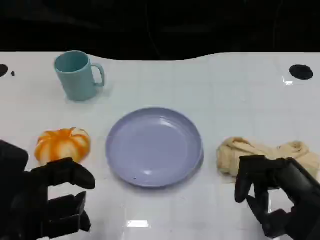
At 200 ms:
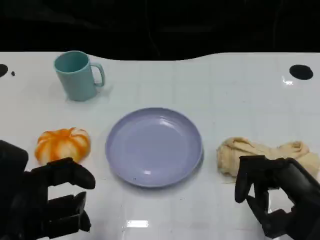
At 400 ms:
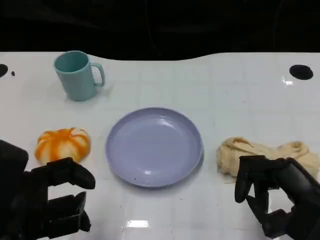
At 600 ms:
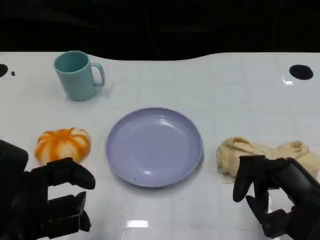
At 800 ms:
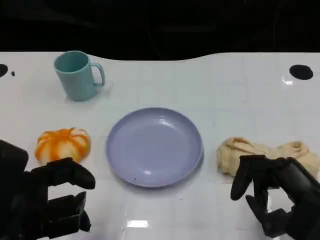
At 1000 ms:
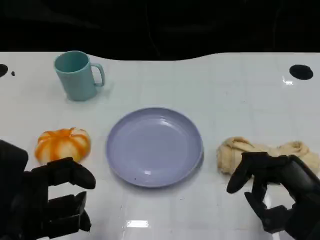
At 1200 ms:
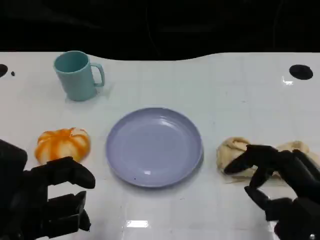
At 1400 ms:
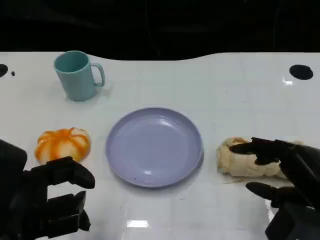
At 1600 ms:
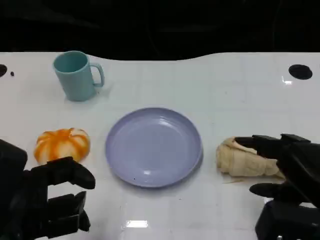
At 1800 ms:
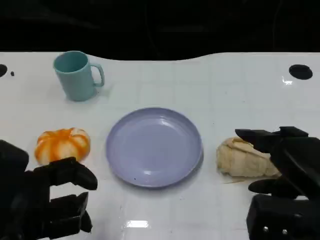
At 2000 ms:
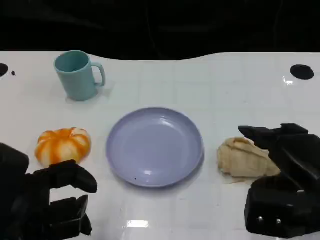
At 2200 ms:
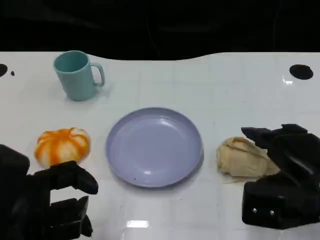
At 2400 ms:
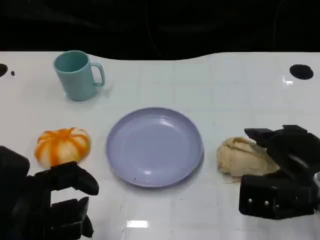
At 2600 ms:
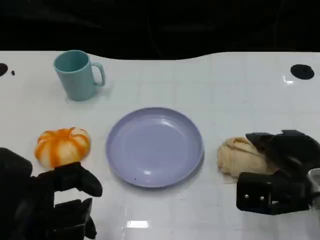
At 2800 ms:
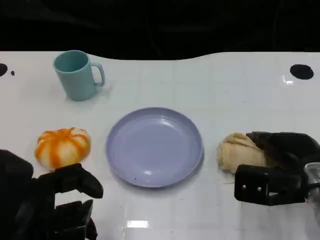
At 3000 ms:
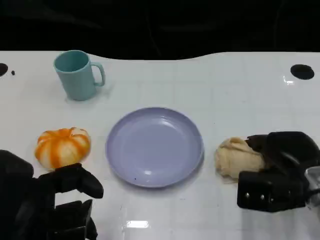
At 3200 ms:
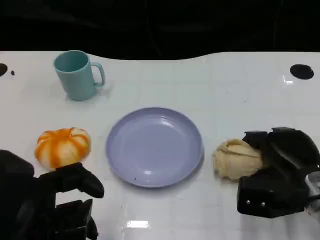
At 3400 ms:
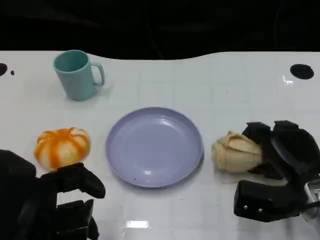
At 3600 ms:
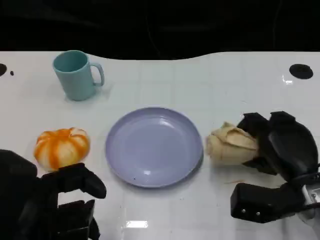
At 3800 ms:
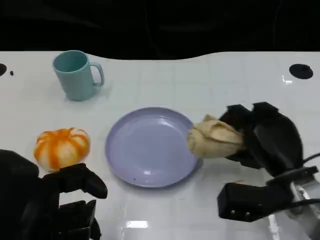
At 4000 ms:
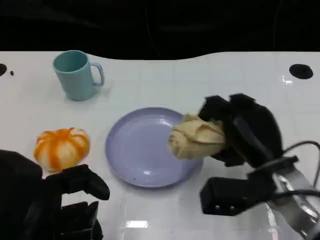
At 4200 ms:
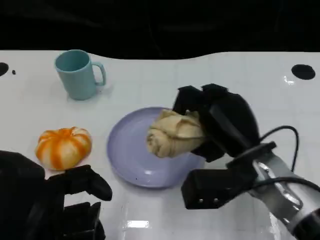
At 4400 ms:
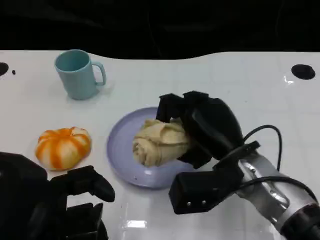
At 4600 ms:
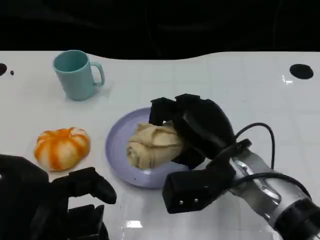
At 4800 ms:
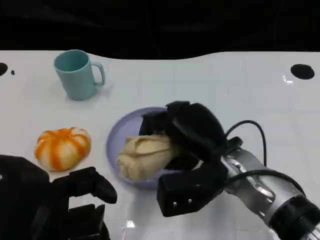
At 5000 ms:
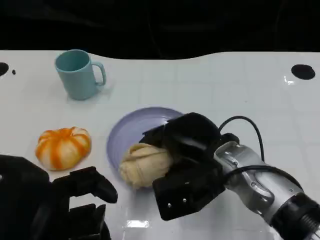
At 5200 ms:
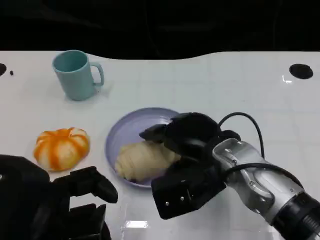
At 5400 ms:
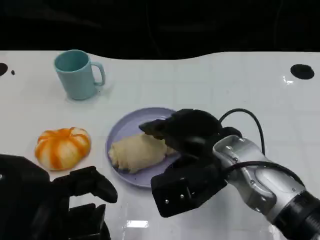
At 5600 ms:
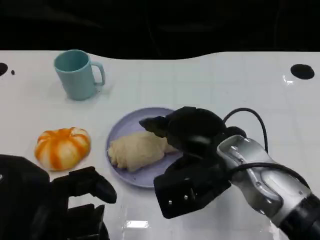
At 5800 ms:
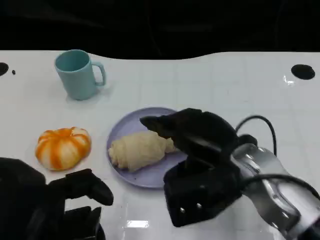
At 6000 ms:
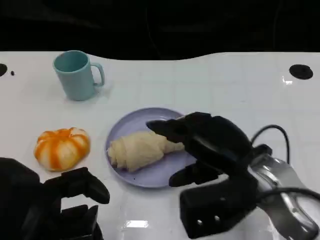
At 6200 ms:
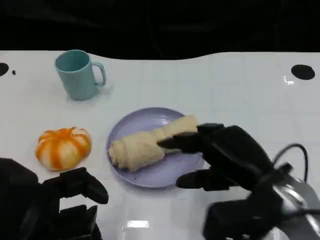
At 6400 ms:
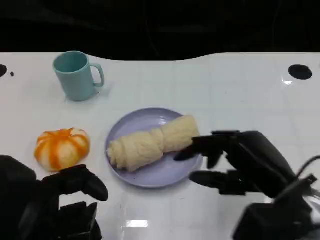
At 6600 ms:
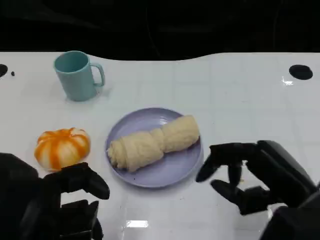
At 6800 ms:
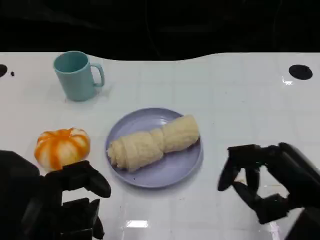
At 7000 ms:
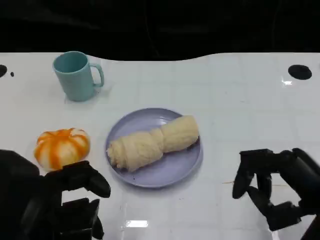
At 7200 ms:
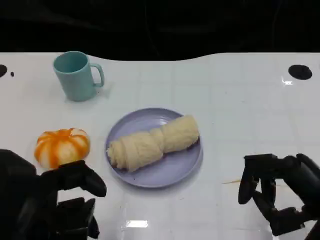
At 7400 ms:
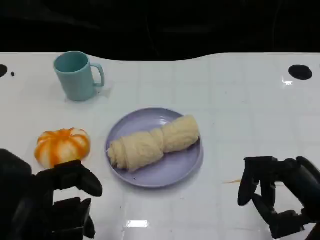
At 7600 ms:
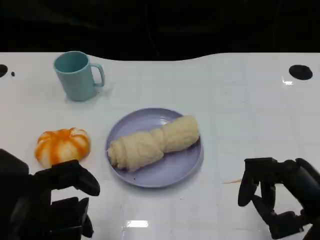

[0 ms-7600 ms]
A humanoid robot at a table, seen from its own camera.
Task of the whole recording: Grasp the towel on the left side of the plate with the left hand and place it into the plate.
1600 ms to 3000 ms: The right hand heads forward and downward, covering some 10 cm.
3000 ms to 4600 ms: The right hand goes approximately 10 cm to the left.
4600 ms to 6000 ms: The right hand ends up some 5 cm from where it was.
6000 ms to 7600 ms: The right hand heads to the right and backward, covering roughly 15 cm.

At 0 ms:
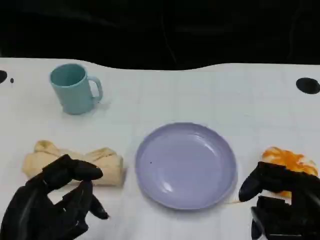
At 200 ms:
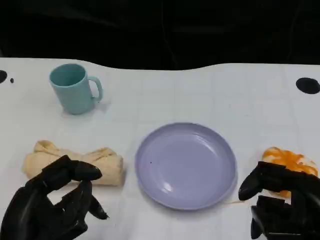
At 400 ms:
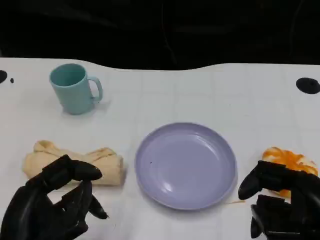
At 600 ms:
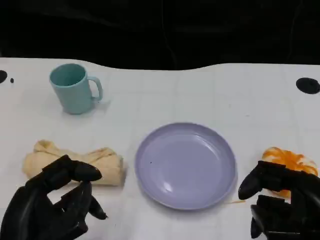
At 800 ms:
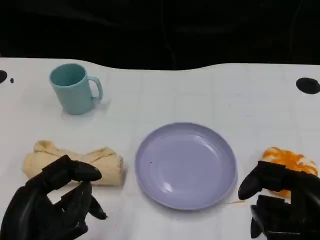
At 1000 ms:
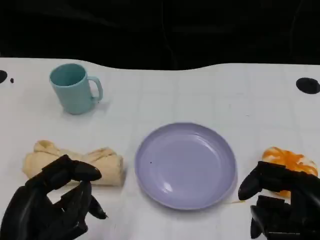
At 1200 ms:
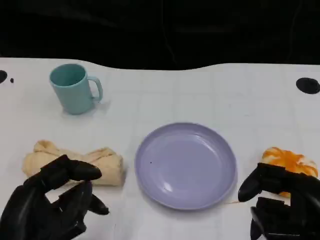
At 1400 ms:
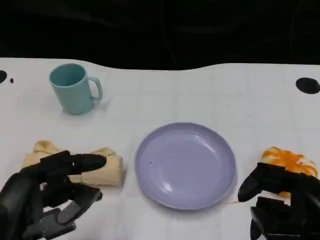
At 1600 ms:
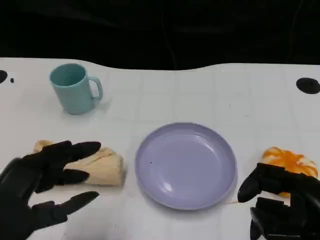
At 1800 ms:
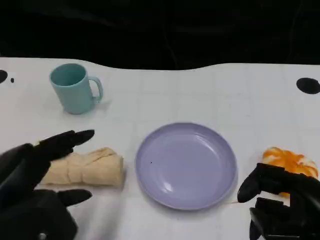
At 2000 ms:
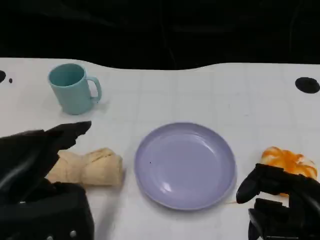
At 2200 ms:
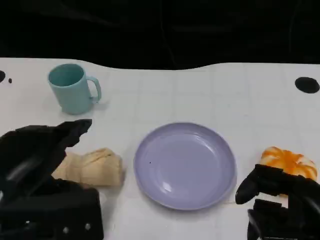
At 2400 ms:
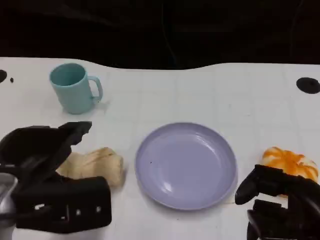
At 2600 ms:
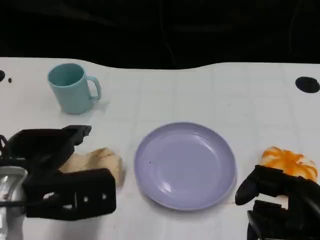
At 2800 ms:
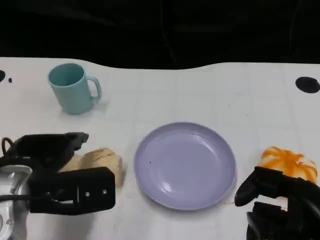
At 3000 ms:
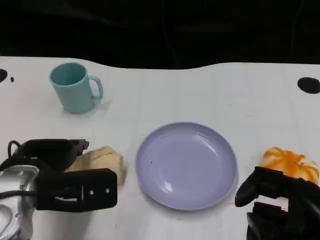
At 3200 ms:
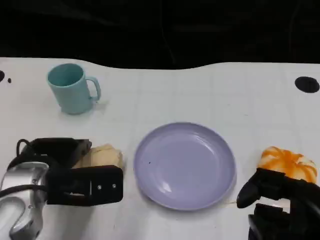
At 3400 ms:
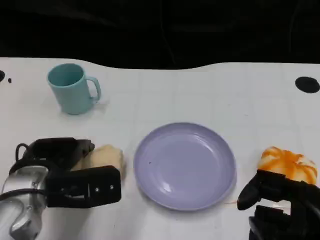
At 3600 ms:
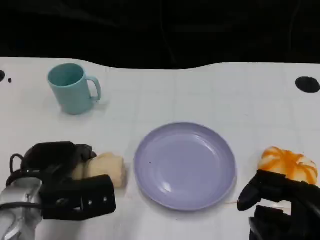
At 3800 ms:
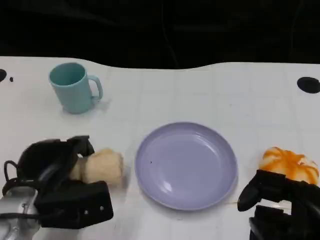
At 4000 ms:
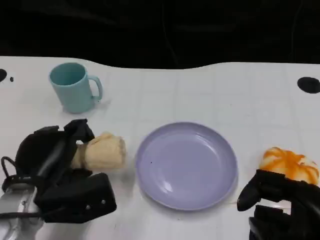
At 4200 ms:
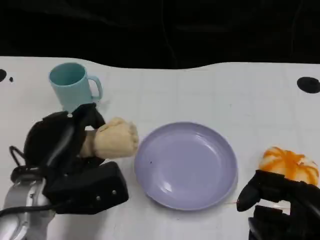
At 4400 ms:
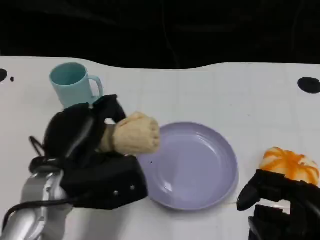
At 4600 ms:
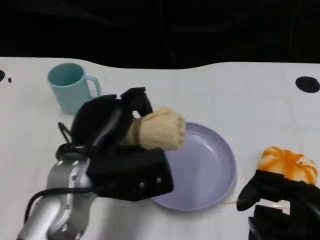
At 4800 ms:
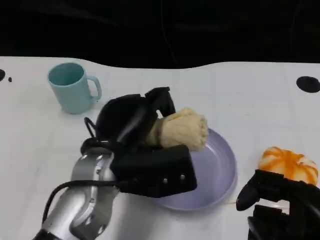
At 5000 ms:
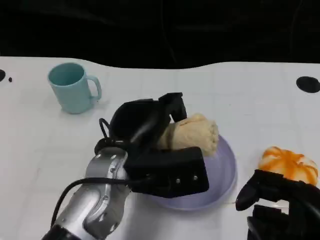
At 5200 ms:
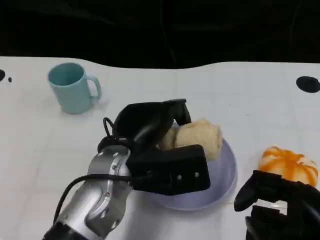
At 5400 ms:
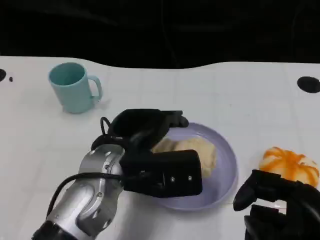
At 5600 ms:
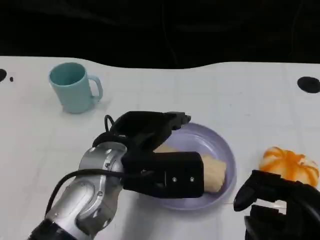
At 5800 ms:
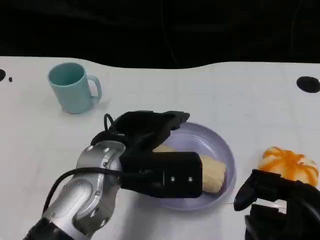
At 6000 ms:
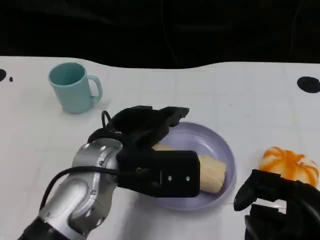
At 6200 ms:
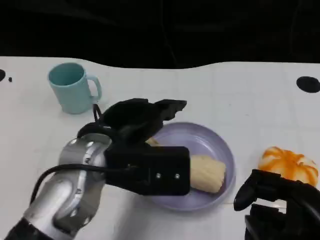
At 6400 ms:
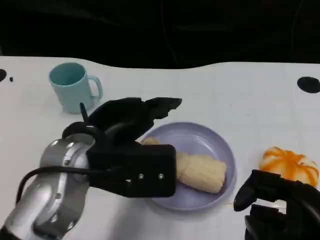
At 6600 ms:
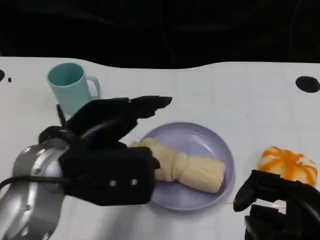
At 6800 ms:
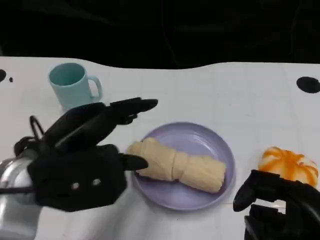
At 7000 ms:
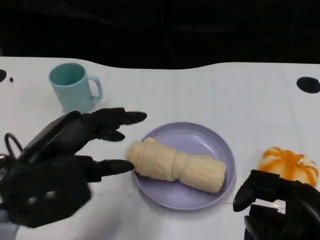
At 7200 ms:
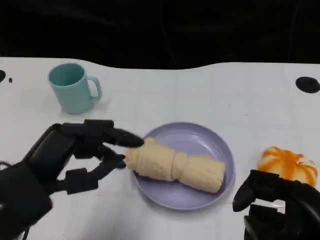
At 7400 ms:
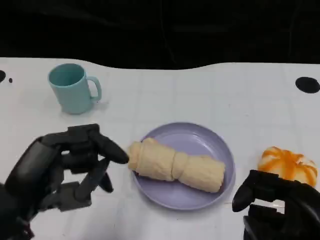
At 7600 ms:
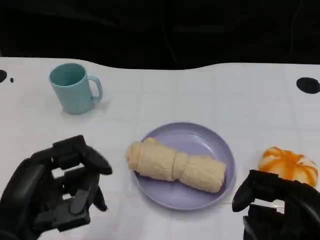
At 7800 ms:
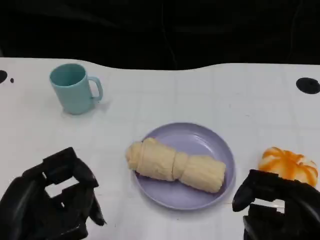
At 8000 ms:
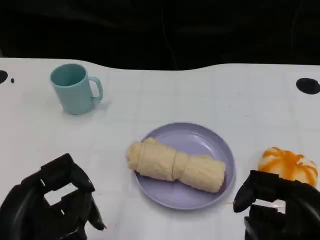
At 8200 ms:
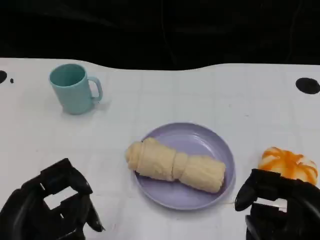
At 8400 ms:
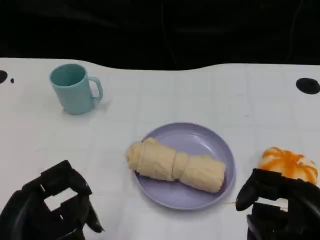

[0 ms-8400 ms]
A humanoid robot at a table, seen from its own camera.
Task of the whole recording: Grasp the towel on the left side of the plate with the left hand and place it into the plate.
1400 ms to 2800 ms: The left hand travels forward by some 10 cm.
4200 ms to 5600 ms: The left hand is displaced to the right by about 10 cm.
5600 ms to 7000 ms: The left hand shifts roughly 15 cm to the left and backward.
7000 ms to 8400 ms: The left hand is displaced backward by roughly 10 cm.

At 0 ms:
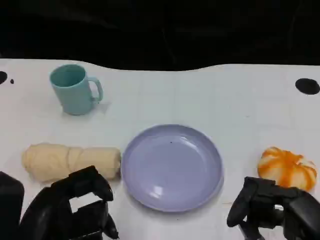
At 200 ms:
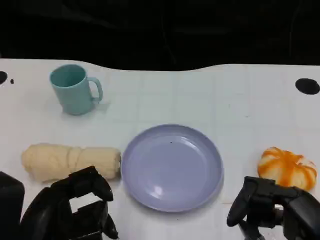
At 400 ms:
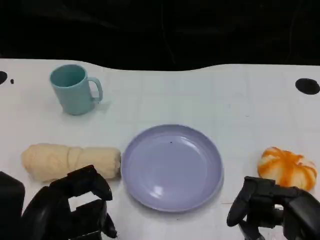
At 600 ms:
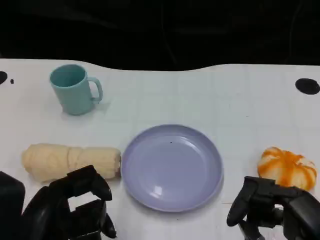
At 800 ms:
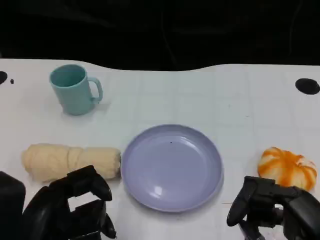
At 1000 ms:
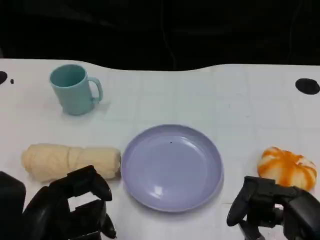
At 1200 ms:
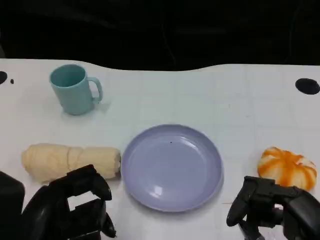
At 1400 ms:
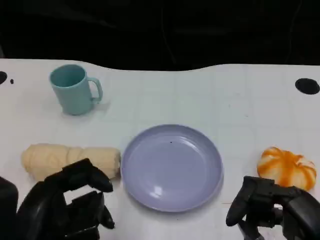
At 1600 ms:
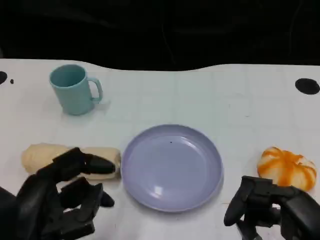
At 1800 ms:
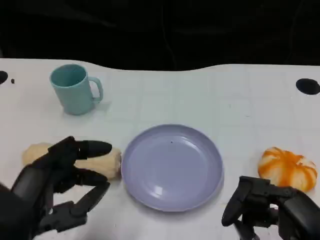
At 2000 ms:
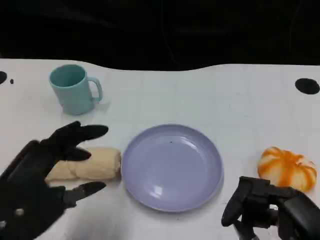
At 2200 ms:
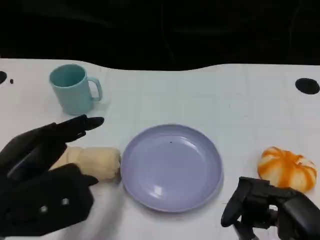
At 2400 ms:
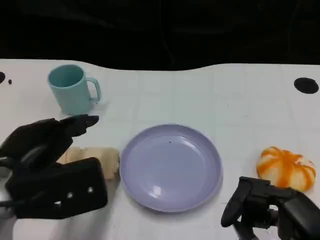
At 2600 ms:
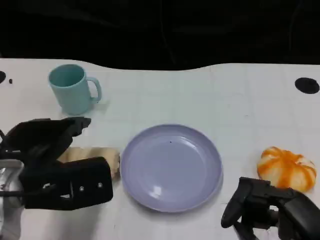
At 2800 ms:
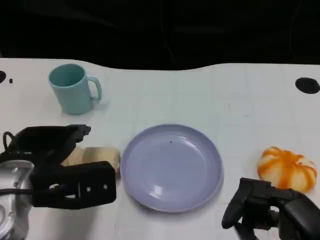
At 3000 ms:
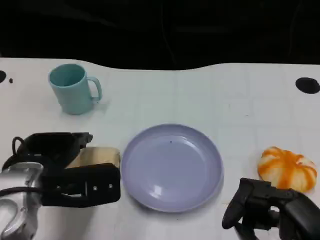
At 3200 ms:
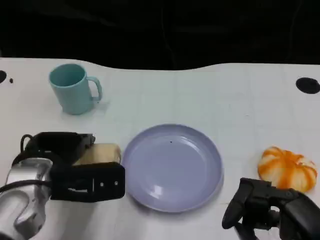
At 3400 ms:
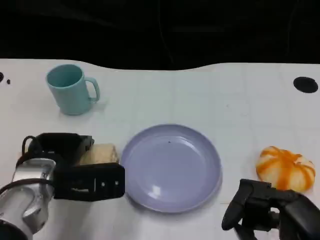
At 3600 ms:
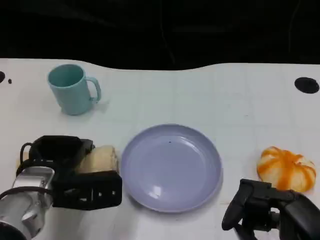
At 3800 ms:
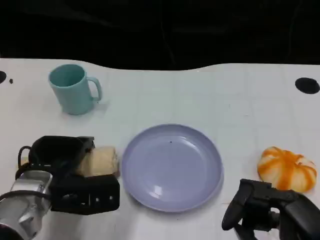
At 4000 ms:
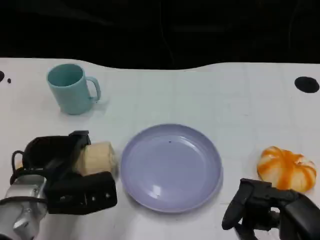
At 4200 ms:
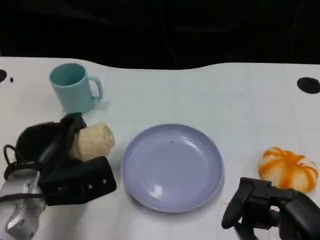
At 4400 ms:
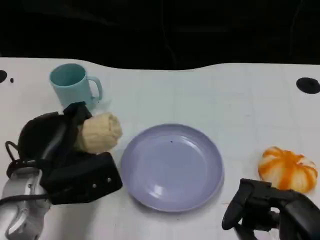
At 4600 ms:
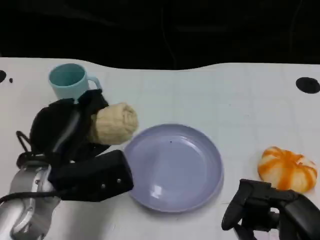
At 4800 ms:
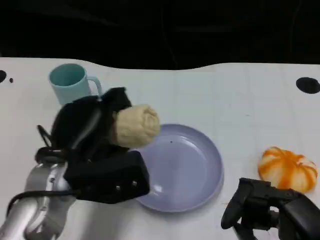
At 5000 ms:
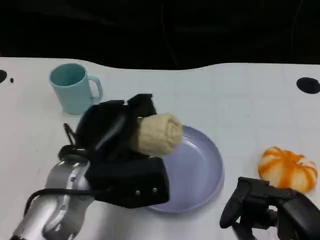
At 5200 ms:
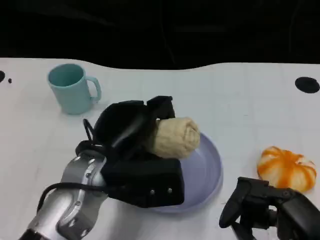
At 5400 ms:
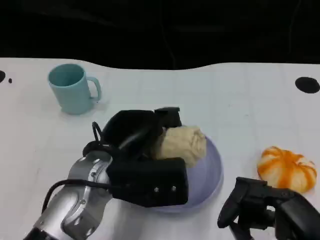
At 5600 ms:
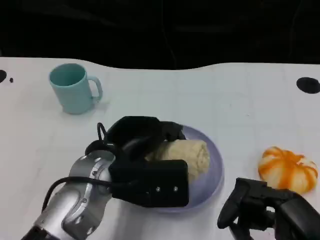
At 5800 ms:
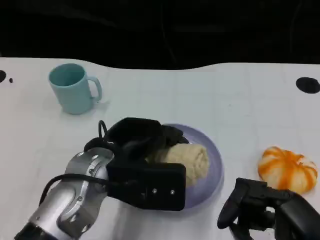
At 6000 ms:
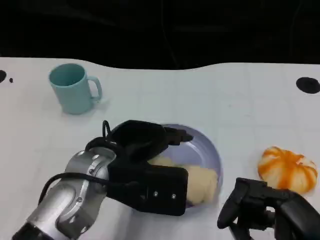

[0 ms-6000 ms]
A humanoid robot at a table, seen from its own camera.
Task of the whole recording: Grasp the towel on the left side of the plate with the left hand and place it into the plate.
0 ms to 1600 ms: The hands make only small movements.
1600 ms to 3000 ms: The left hand moves forward, some 10 cm.
4400 ms to 6000 ms: The left hand is displaced to the right and upward by approximately 10 cm.
